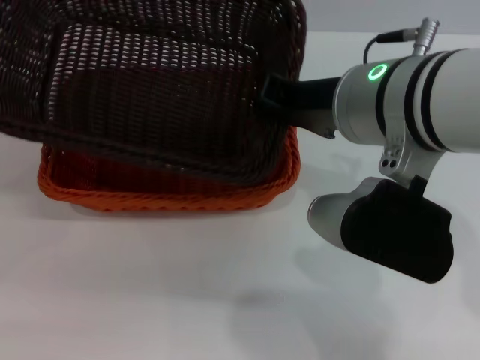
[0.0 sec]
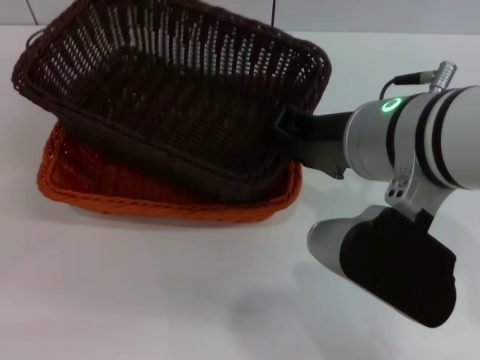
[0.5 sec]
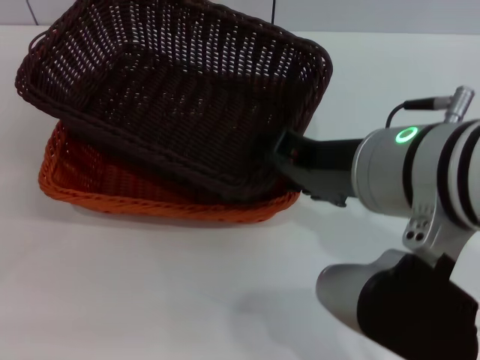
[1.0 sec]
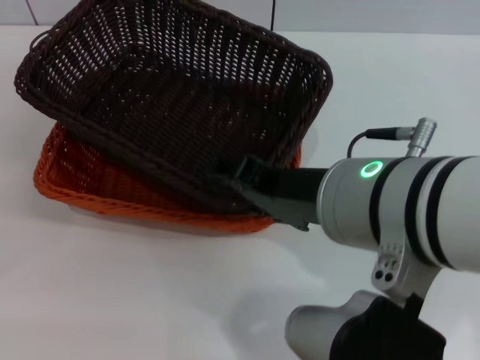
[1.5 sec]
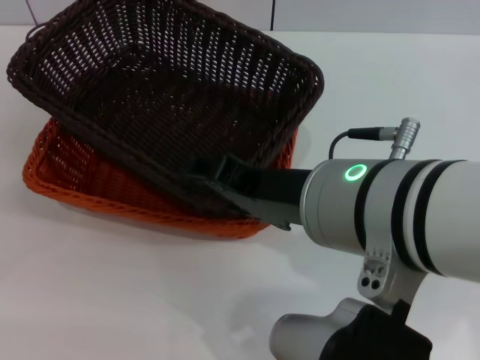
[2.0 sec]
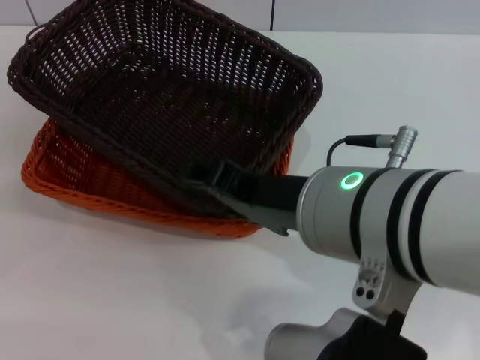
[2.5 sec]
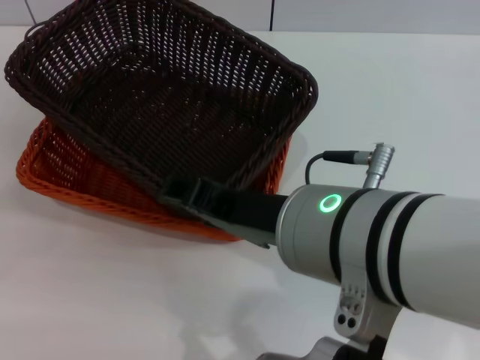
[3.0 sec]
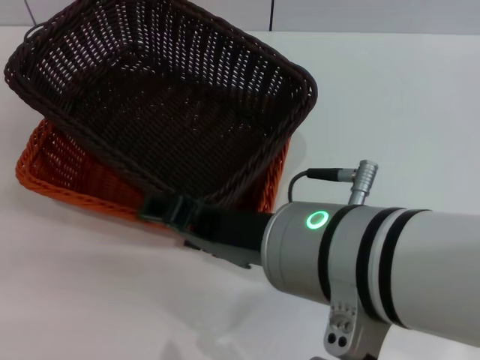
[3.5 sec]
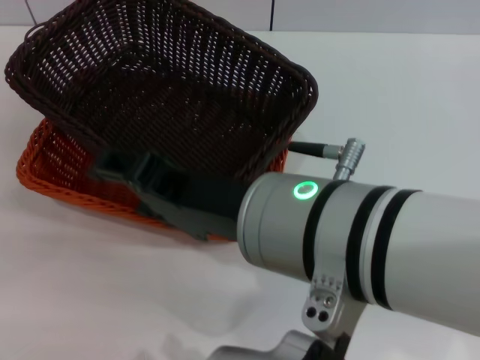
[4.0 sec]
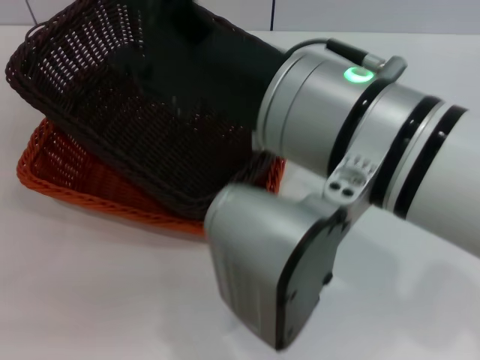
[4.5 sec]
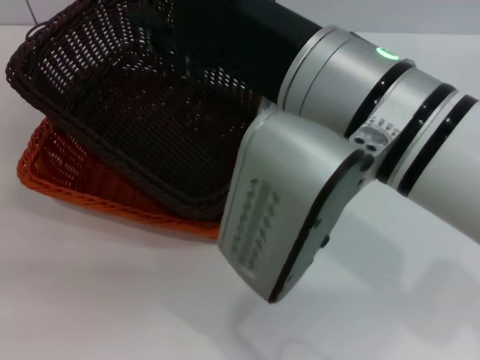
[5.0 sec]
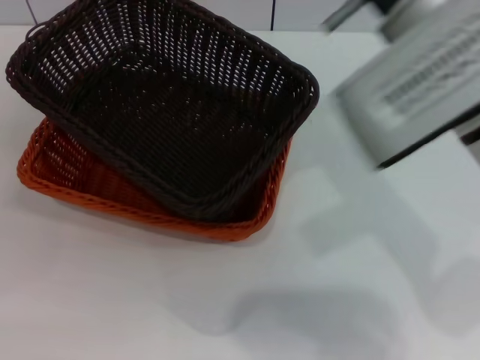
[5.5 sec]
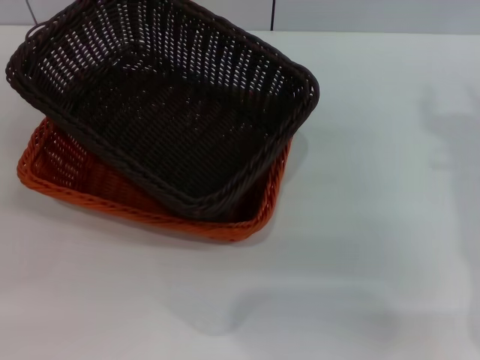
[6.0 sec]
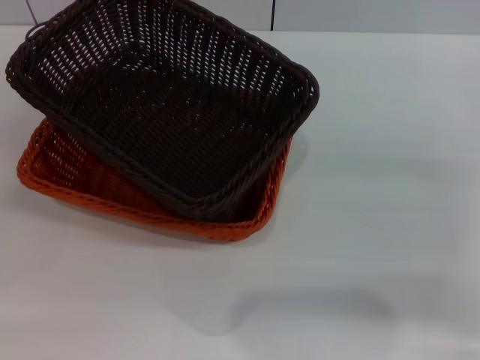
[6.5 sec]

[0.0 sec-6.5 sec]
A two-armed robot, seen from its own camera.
Step, 0.0 sec to 3.0 sec: Place the dark basket on the light basket with the right gripper.
0.0 sec to 2.0 sec: The right gripper moves backward, roughly 5 cm, and opens.
4.5 sec to 6.5 sec: The left gripper goes some 5 cm upward, while the right gripper moves to the right and downward, about 30 cm.
